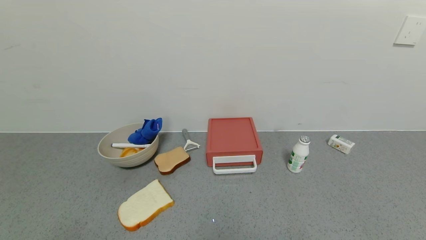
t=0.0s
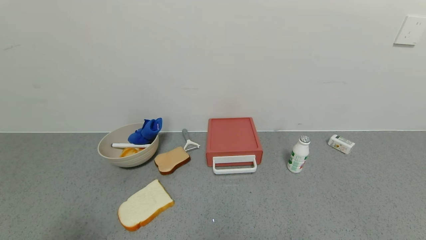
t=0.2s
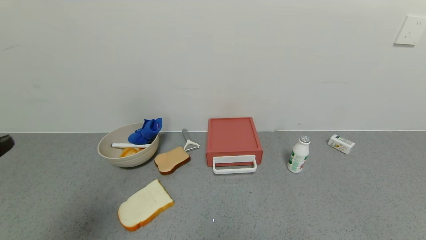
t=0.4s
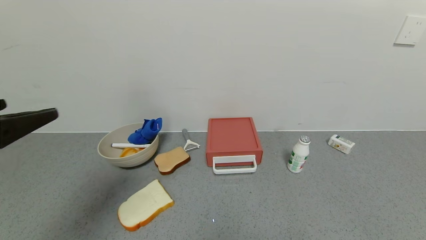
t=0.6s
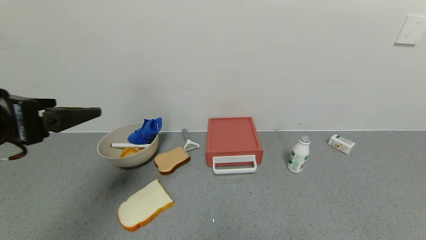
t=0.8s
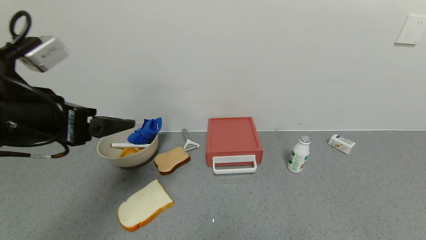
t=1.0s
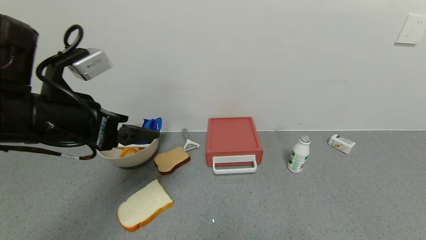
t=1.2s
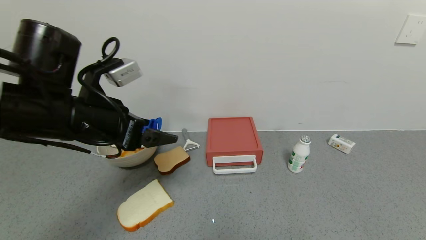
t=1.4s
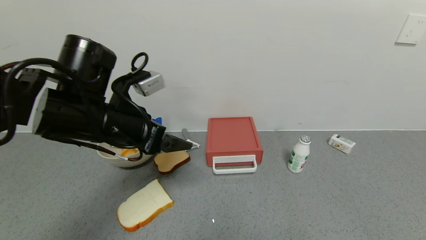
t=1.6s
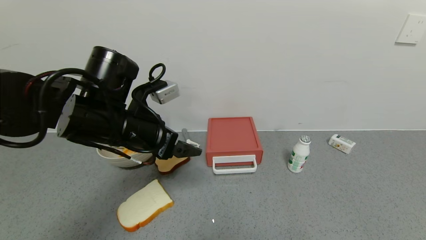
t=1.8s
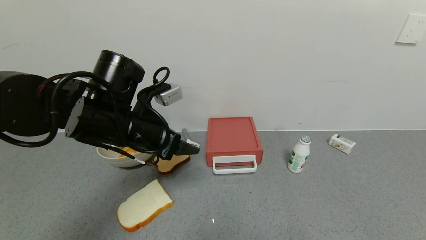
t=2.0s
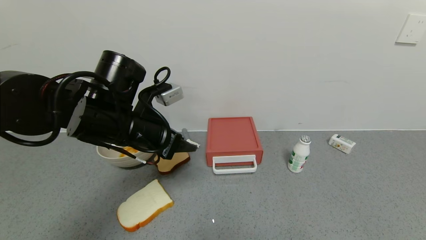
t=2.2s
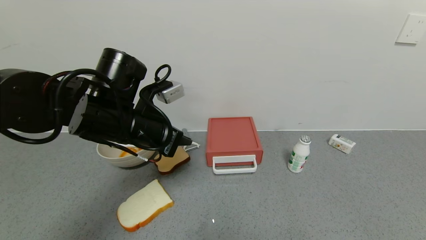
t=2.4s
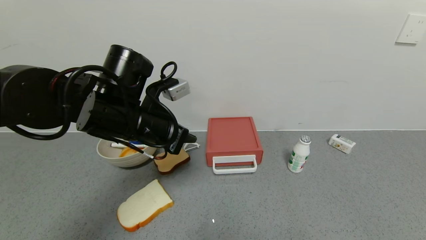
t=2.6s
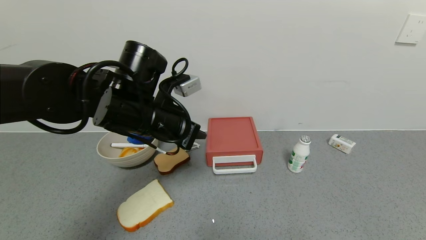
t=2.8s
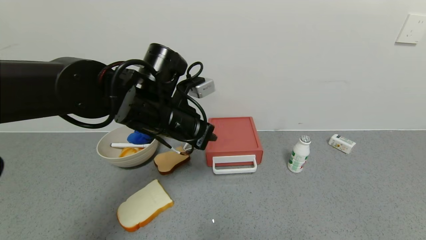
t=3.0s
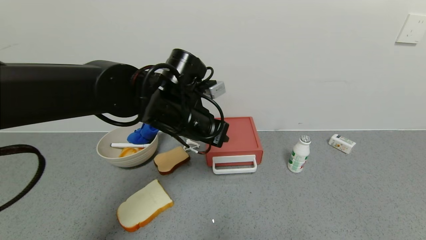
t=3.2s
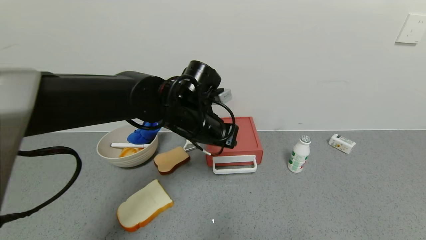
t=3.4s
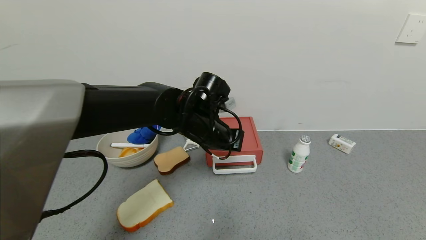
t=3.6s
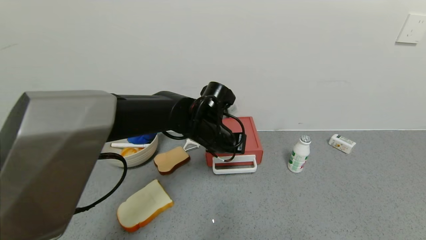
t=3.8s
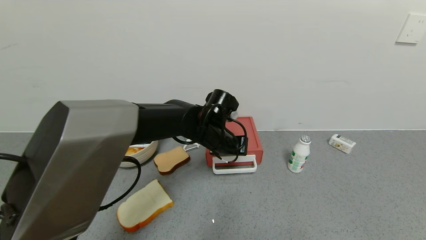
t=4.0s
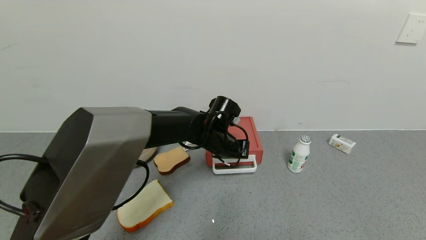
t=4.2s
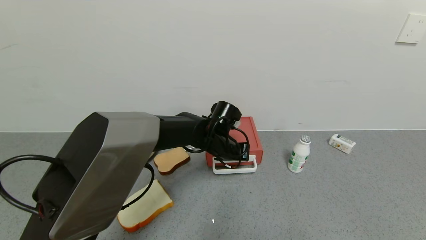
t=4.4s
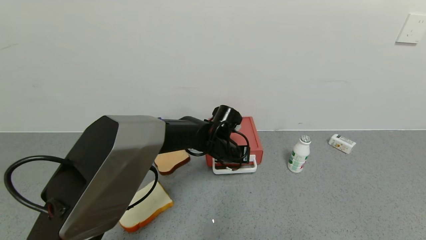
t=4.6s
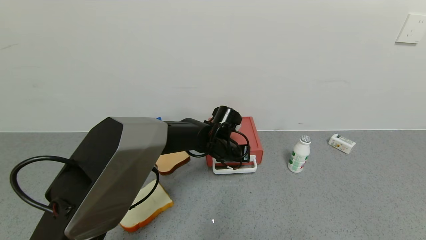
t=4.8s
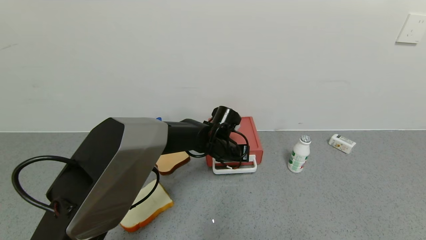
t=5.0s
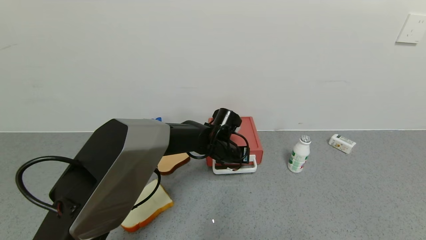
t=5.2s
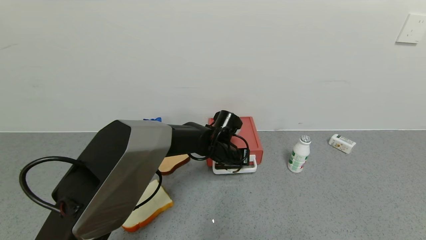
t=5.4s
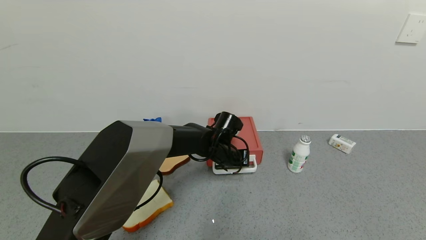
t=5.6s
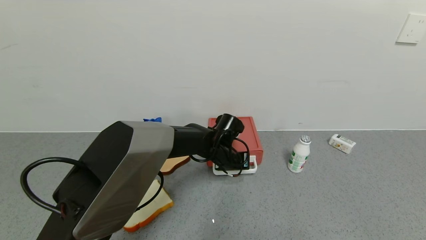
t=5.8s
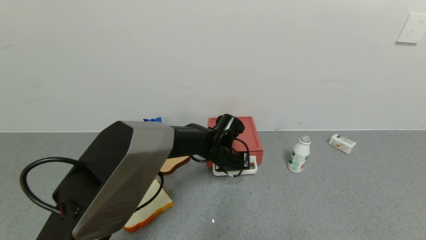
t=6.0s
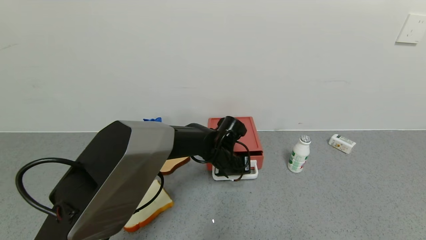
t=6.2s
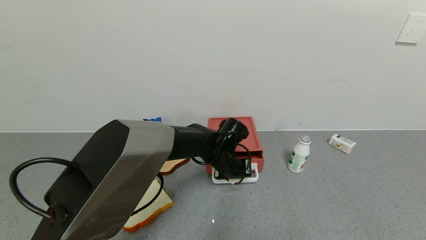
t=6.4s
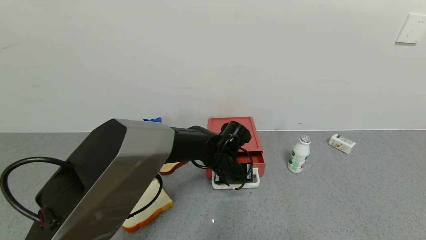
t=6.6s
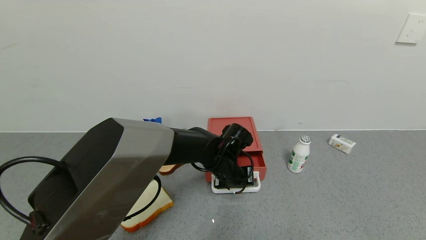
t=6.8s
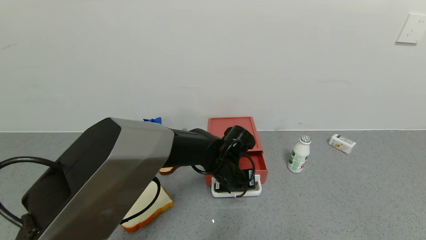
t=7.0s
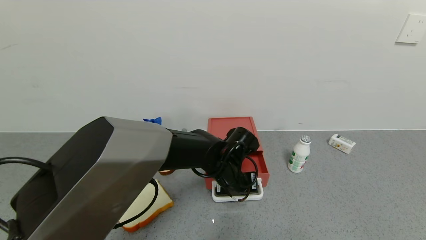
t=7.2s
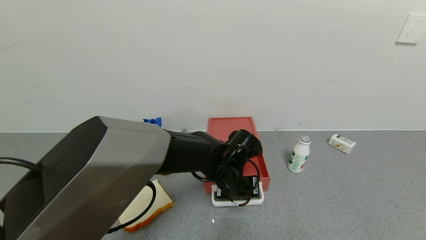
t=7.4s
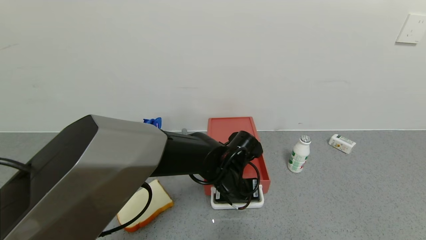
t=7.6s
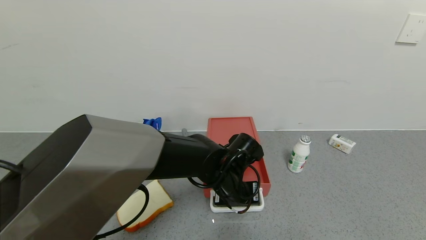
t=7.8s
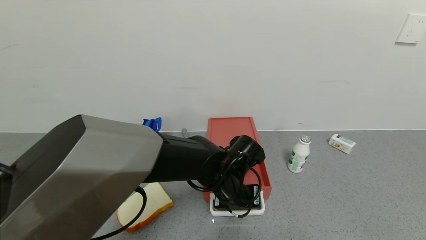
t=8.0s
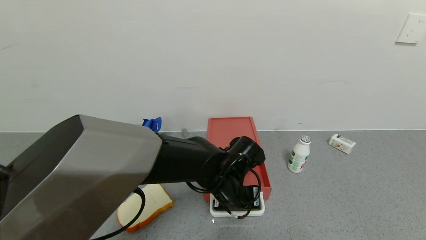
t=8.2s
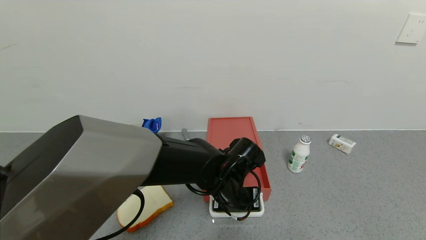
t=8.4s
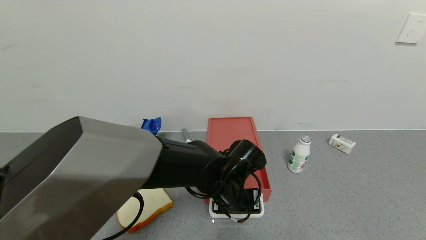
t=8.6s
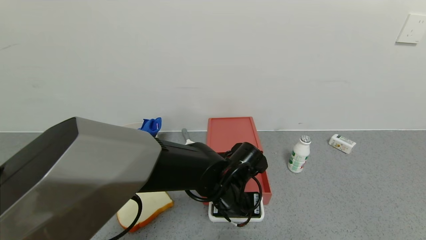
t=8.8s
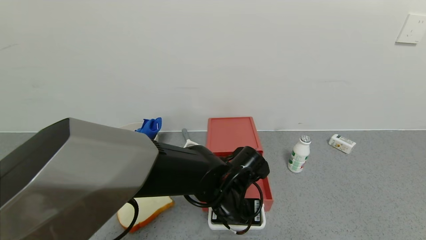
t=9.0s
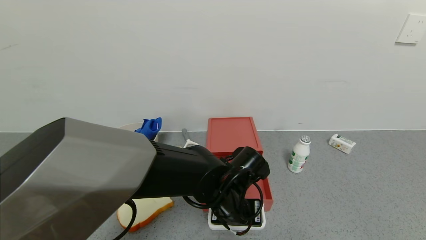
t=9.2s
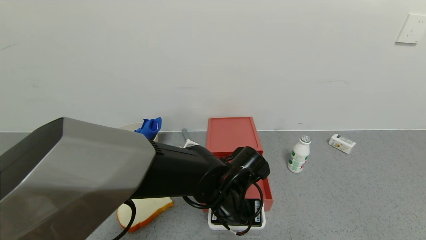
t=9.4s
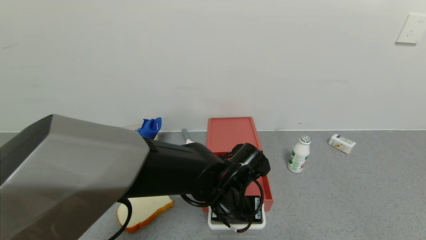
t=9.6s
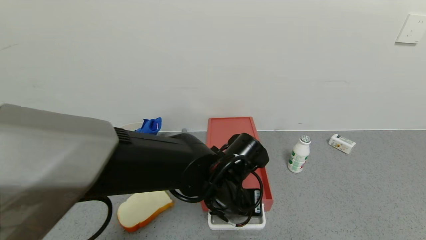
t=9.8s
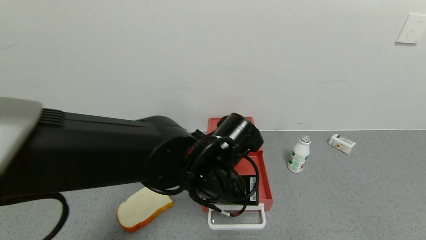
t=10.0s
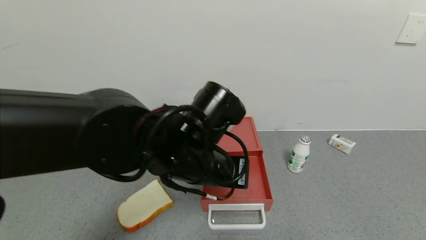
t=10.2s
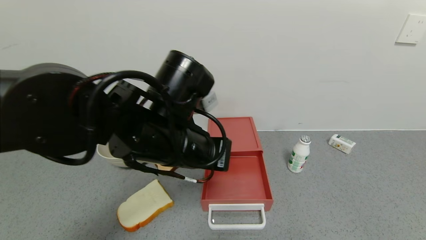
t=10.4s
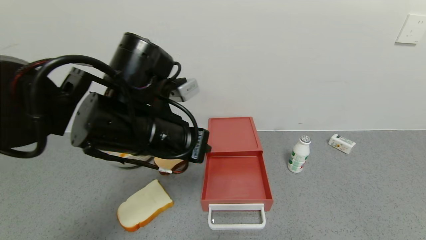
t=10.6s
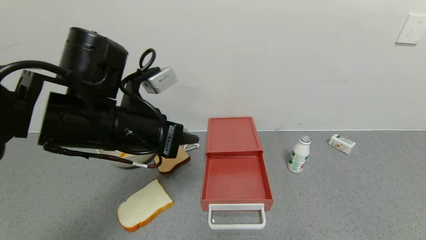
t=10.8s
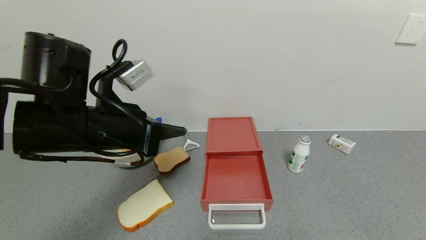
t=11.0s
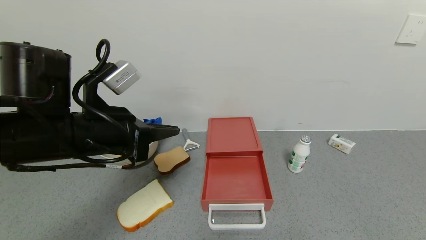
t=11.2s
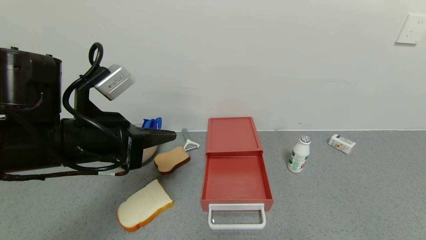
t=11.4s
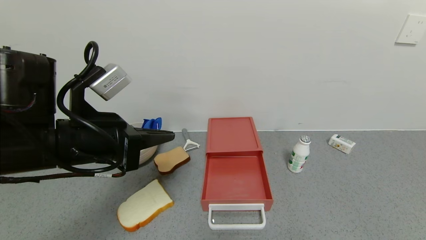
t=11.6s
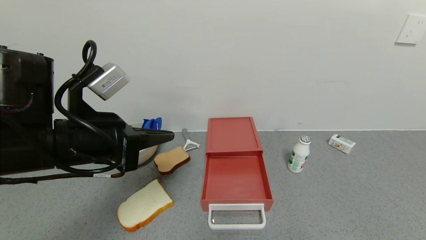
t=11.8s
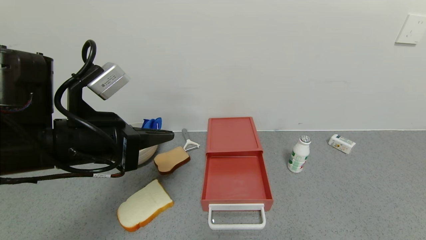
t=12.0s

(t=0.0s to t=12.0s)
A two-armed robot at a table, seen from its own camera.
Task of the whole recording: use the gripper to open the drawer and close the red drawer.
Step, t=0.0s - t=10.0s: Open the red drawer with the left gripper.
t=0.0s - t=1.6s: The left gripper travels forward and to the right by approximately 30 cm.
t=1.6s - t=3.0s: The left gripper shifts roughly 10 cm to the right, and closes its fingers.
t=3.0s - t=4.4s: The left gripper heads downward, to the right and forward, covering some 20 cm.
t=4.4s - t=6.0s: The grippers make only small movements.
t=6.0s - t=7.6s: The left gripper travels backward by about 10 cm.
t=7.6s - t=9.0s: The grippers make only small movements.
t=9.0s - t=10.4s: The left gripper moves upward and to the left, roughly 15 cm.
t=10.4s - t=12.0s: The left gripper is displaced to the left by some 10 cm.

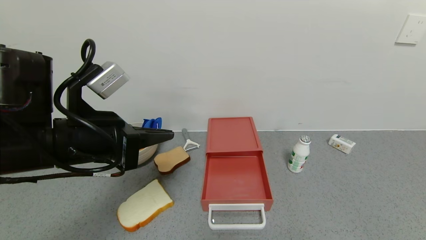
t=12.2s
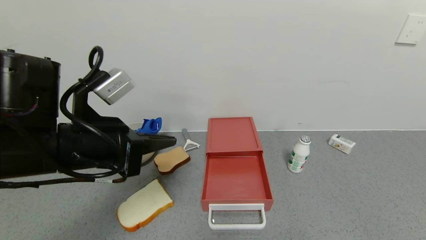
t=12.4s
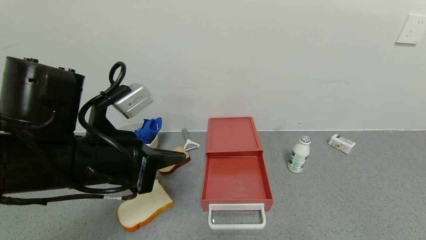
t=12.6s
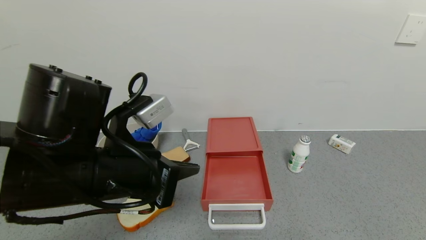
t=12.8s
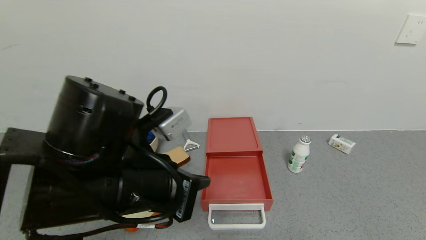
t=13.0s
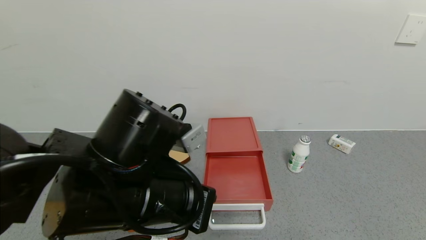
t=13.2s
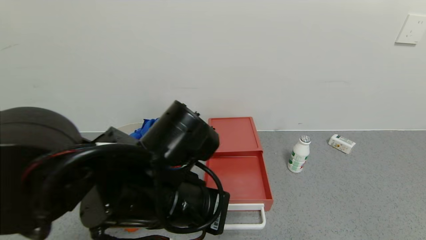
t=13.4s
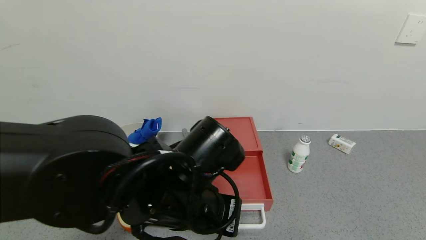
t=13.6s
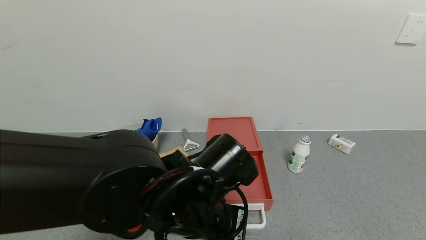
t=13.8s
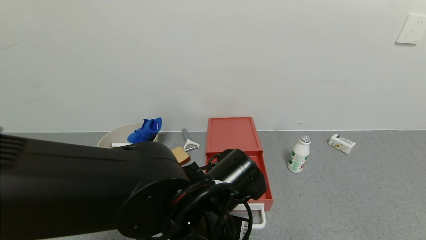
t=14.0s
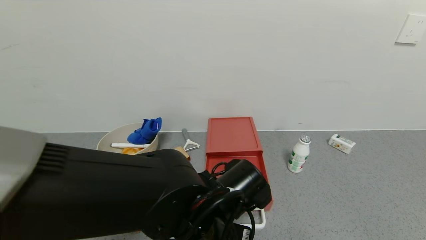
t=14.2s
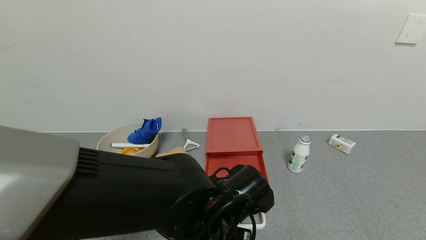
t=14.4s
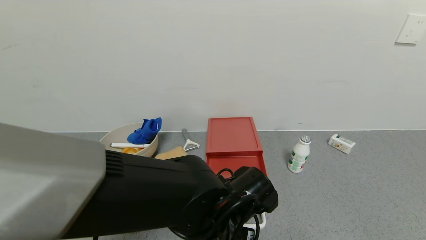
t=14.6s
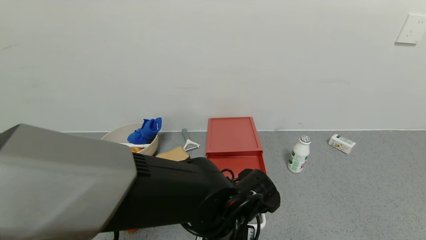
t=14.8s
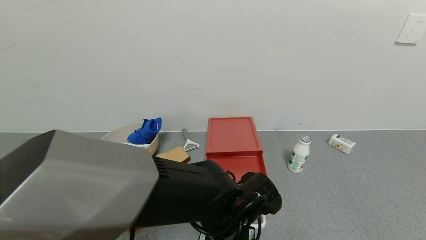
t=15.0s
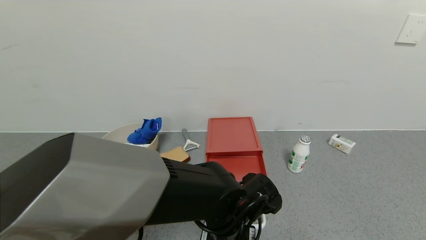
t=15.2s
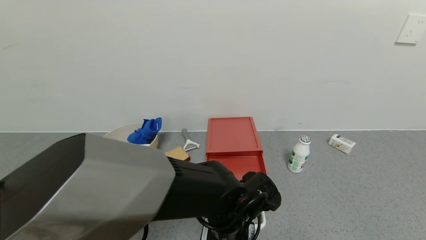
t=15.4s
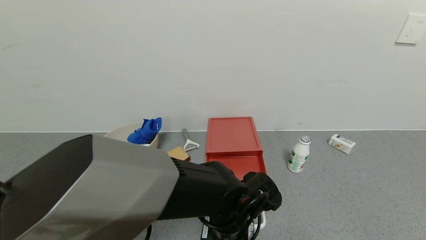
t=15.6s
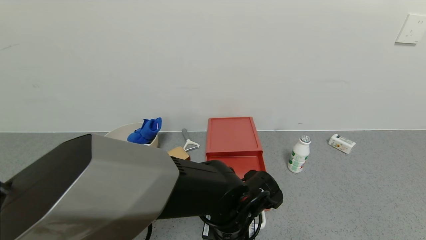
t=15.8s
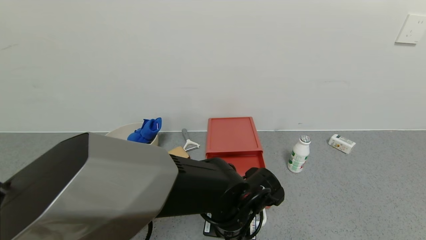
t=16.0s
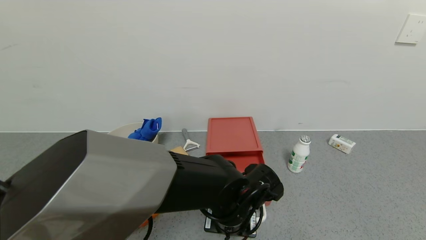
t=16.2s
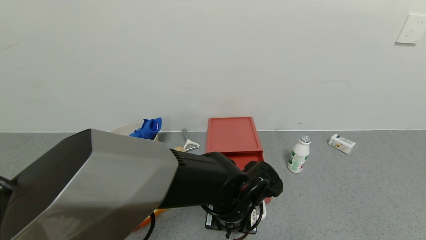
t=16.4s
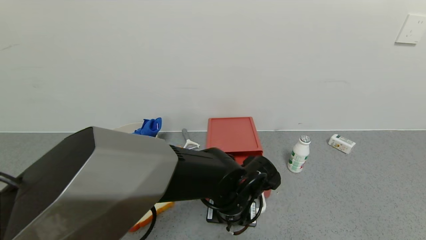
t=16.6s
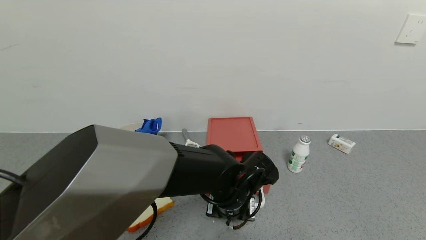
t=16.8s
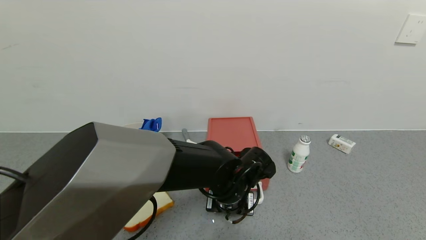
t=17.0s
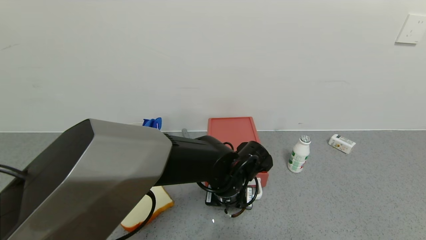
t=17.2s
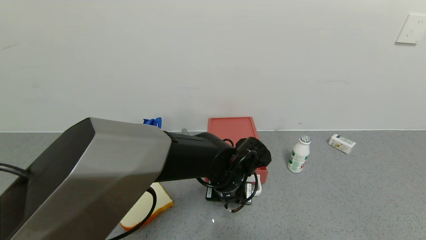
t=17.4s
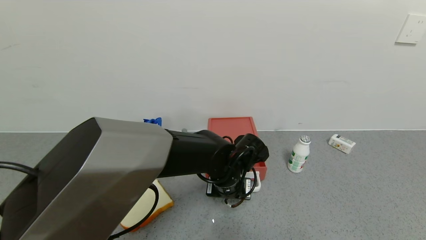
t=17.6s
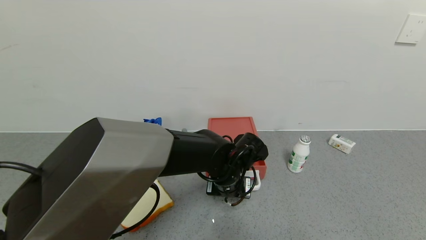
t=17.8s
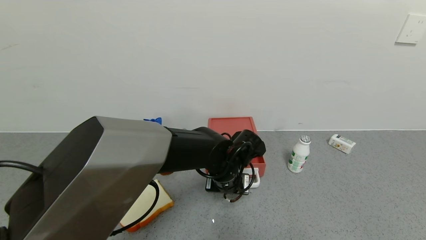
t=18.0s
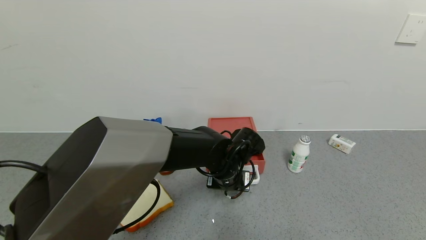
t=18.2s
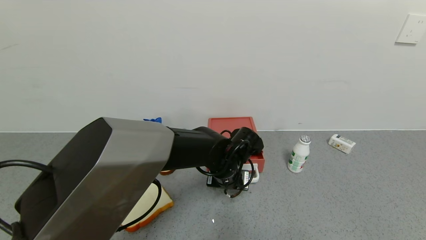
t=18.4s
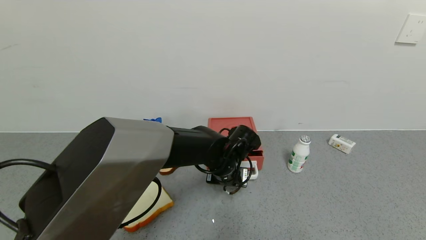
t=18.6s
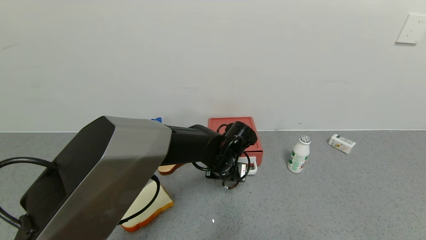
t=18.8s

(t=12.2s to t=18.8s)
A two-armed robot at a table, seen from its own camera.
Task of the whole recording: use the gripper to open the drawer and close the red drawer.
t=12.2s - t=13.8s: The left gripper goes approximately 20 cm to the right and downward.
t=13.8s - t=15.4s: The left gripper moves downward, roughly 10 cm.
t=15.4s - t=17.2s: The left gripper moves forward, about 5 cm.
t=17.2s - t=18.8s: The left gripper travels forward by some 5 cm.
